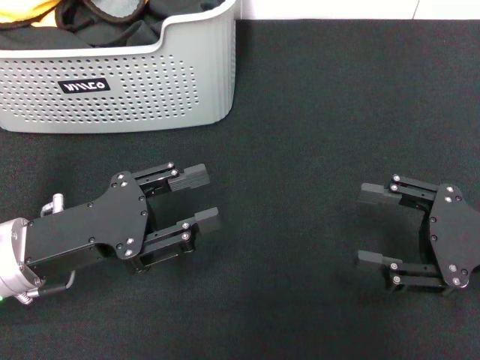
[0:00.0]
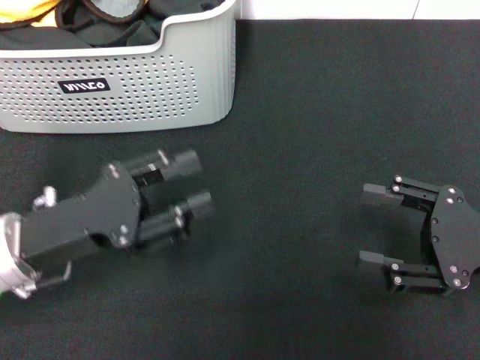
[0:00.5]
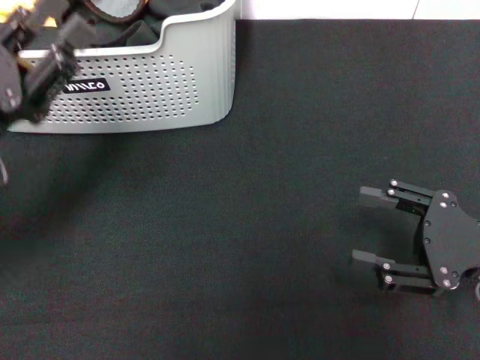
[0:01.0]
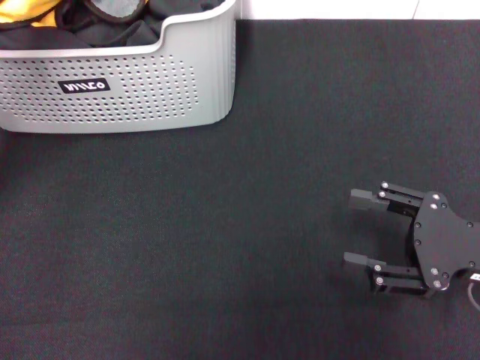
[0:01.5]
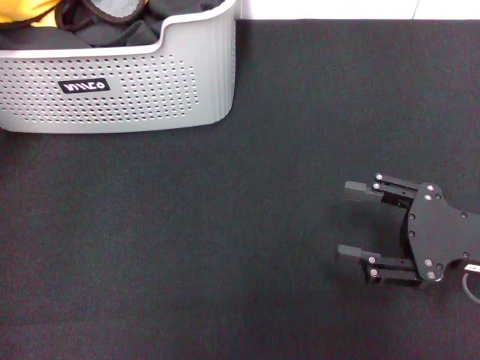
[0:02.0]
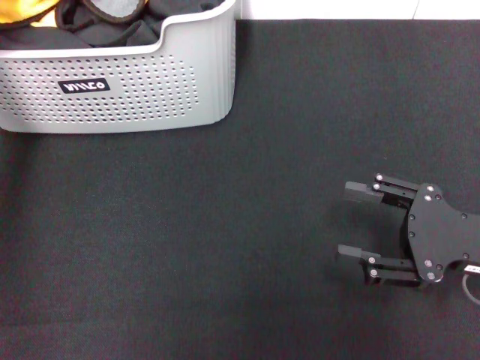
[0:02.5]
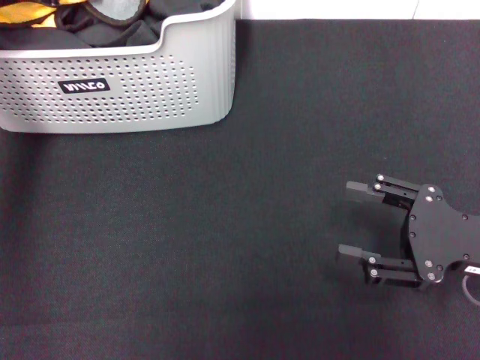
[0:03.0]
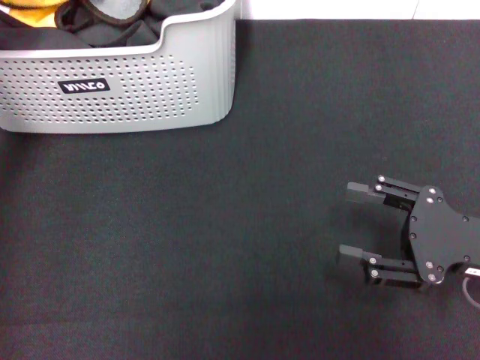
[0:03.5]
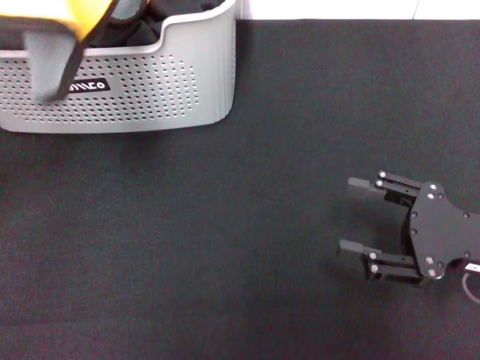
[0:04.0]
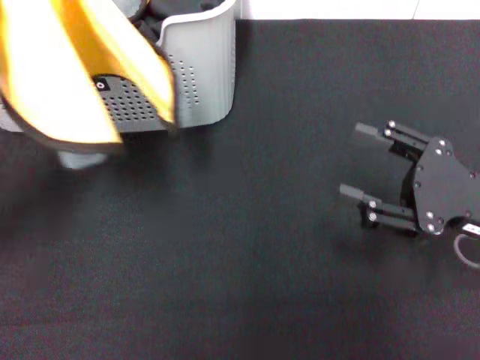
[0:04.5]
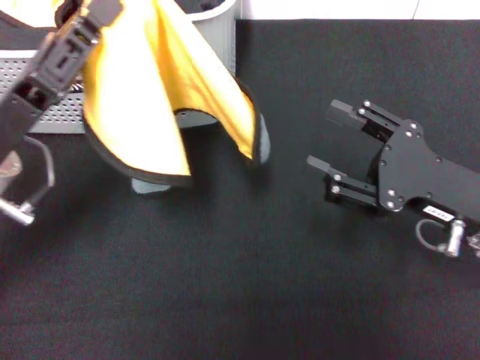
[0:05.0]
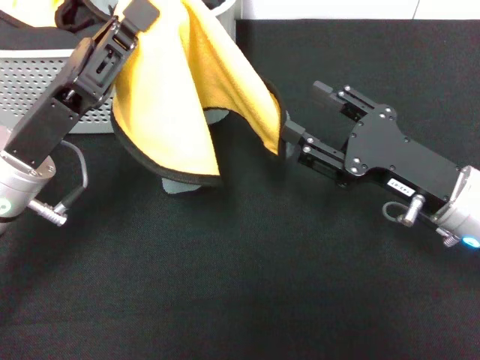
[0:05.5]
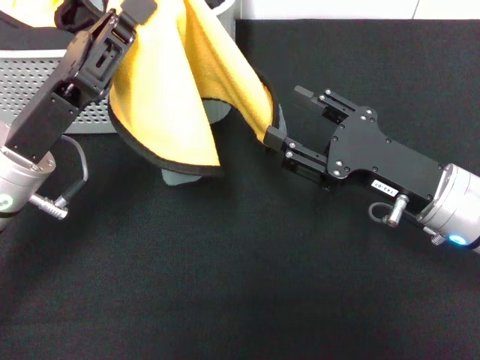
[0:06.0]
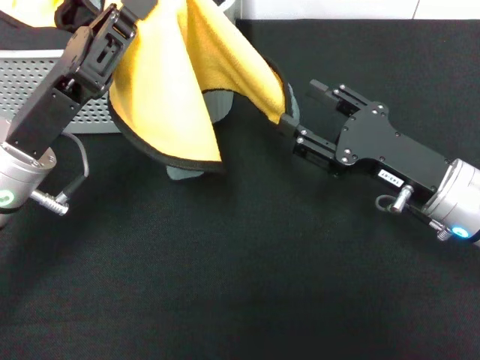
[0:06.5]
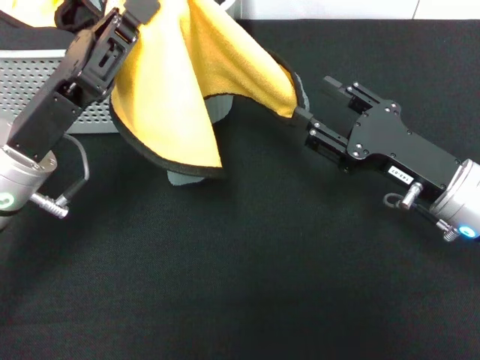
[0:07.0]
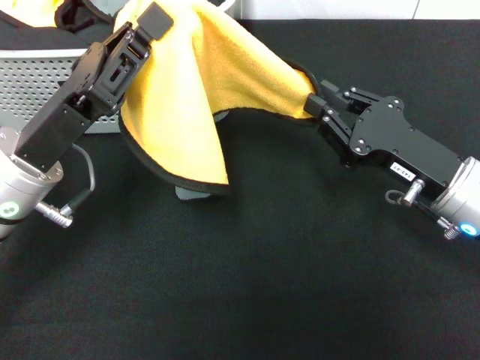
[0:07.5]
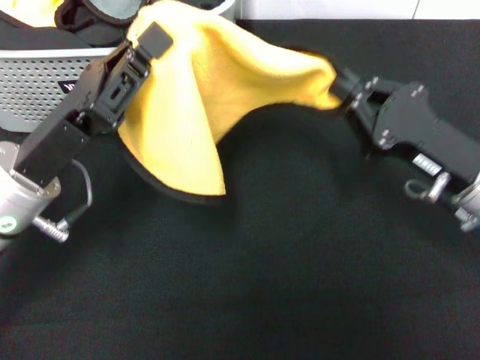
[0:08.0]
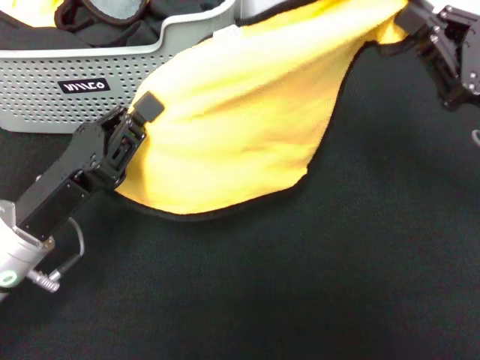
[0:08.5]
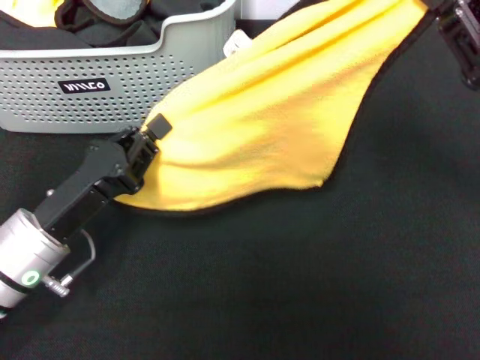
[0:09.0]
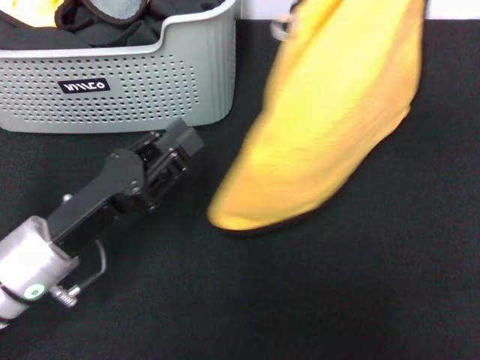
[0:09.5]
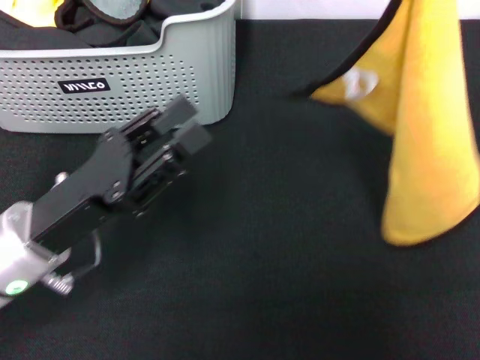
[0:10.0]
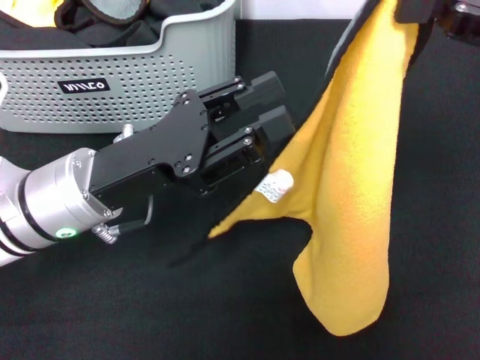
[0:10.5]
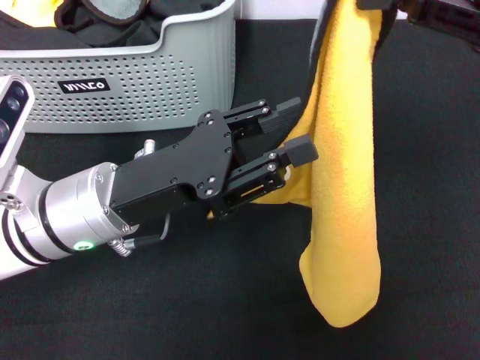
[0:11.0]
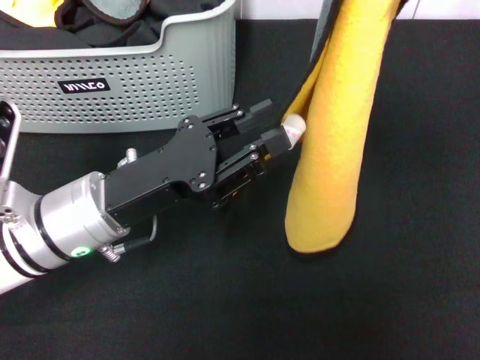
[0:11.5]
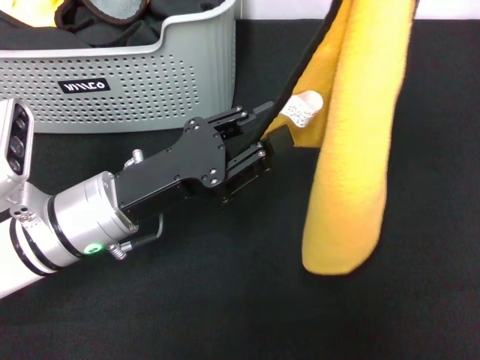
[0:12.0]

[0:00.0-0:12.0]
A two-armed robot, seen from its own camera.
Task of the whole recording: pick up the towel from the storage box and lay it flat on the black tablecloth.
Step, 0:00.0 to 0:03.0: Pick up a towel with the left gripper.
Step, 0:03.5 to 0:07.5: Spread the towel flat with the left gripper.
0:00.0 to 0:02.0: The left gripper shifts roughly 20 cm forward, upward and to the left.
0:02.0 to 0:04.0: The left gripper is displaced backward by roughly 10 cm, and closes its fingers.
0:04.0 to 0:06.0: The right gripper moves to the left, some 10 cm. Meanwhile the left gripper moves downward and to the right, approximately 15 cm.
0:06.0 to 0:08.0: The right gripper closes up.
0:08.0 to 0:10.0: The left gripper opens up, while the right gripper moves upward, about 20 cm.
0:10.0 to 0:12.0: The left gripper ends up some 5 cm from where it was.

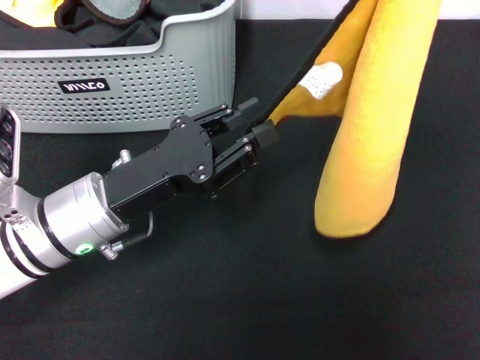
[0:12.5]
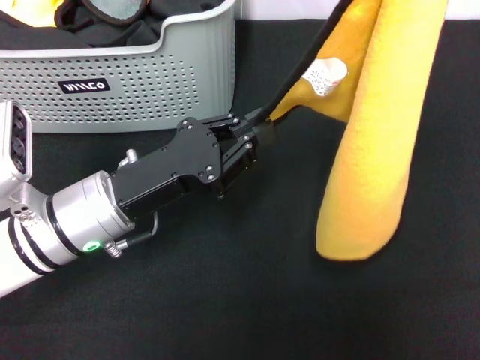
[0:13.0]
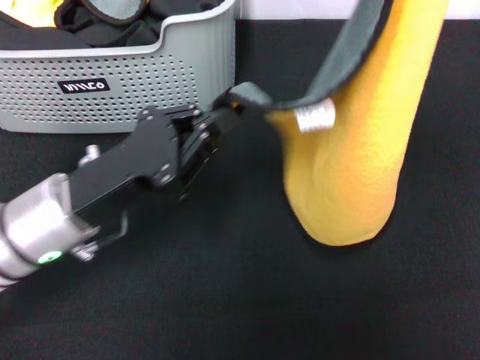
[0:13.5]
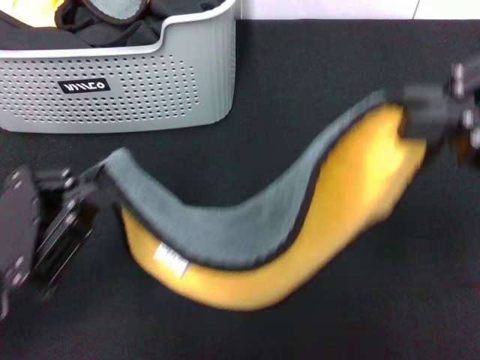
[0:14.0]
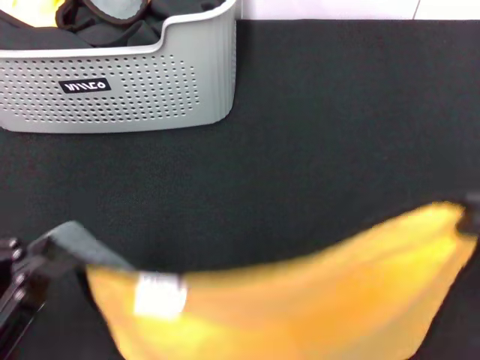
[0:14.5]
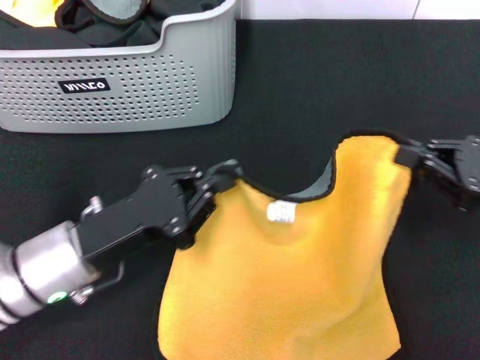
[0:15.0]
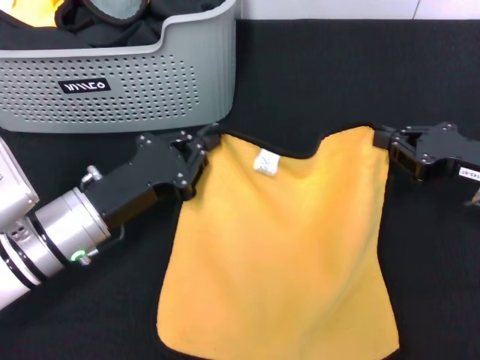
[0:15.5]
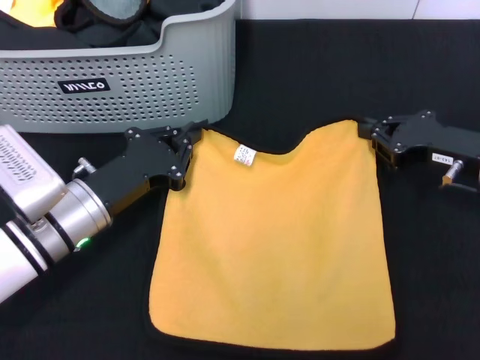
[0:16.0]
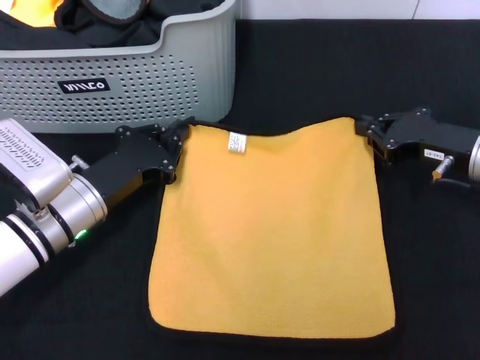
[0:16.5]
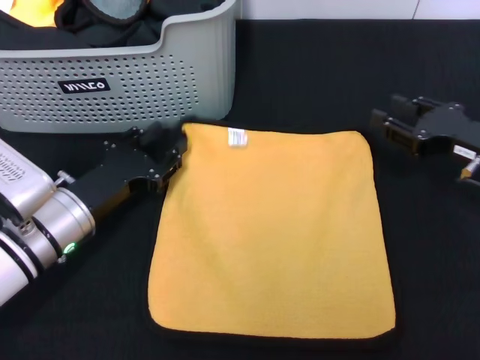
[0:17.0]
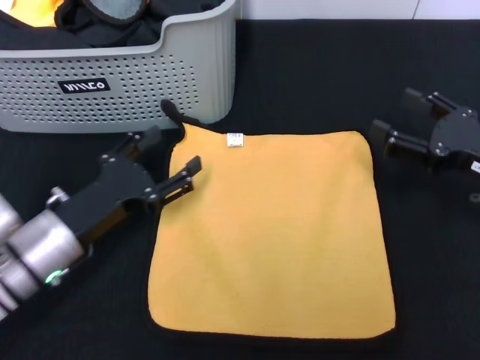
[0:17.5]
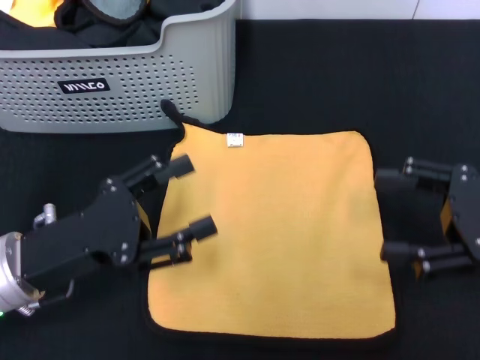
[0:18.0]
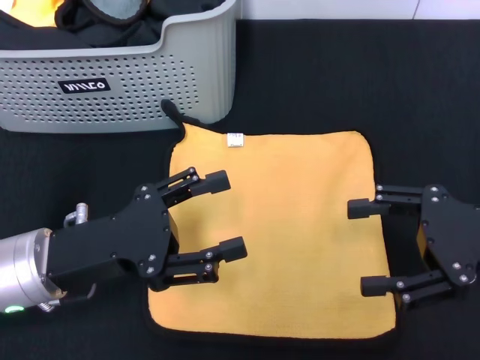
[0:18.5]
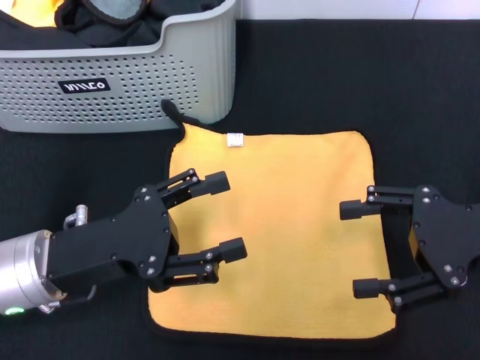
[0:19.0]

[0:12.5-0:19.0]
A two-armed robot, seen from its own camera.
Task of the whole recording: pick up the towel from the storage box and lay it flat on the black tablecloth.
Step, 0:12.5 to 0:16.5: Spread the towel flat with the right gripper.
0:12.5 to 0:14.5: The right gripper travels backward and downward by roughly 20 cm; the left gripper is displaced backward and to the left by some 20 cm, and closes up.
0:14.5 to 0:17.0: The two grippers go approximately 20 cm forward and downward. The left gripper opens.
0:17.0 to 0:19.0: The left gripper goes about 10 cm upward and backward, and opens. The right gripper heads backward and upward, covering roughly 10 cm, and opens.
